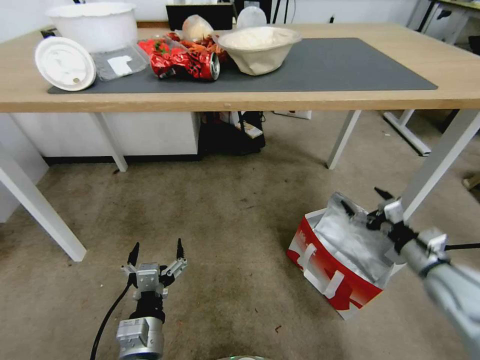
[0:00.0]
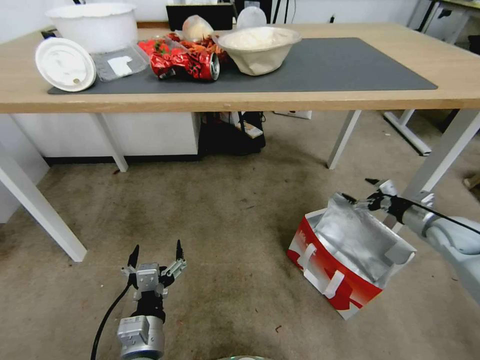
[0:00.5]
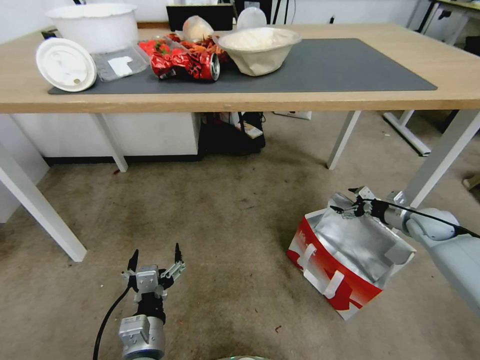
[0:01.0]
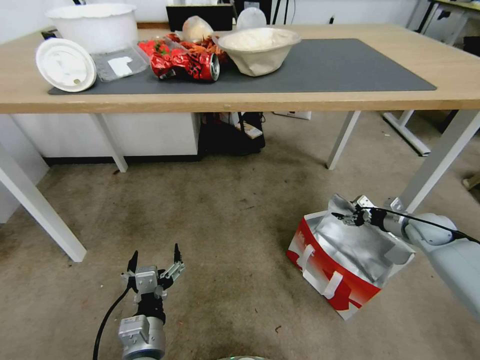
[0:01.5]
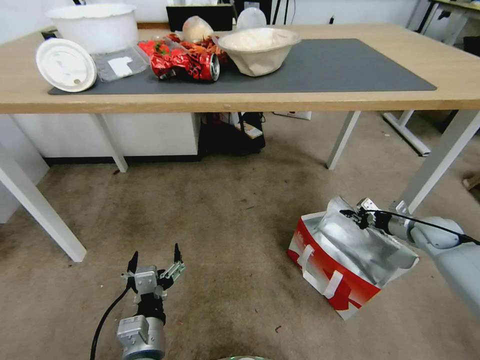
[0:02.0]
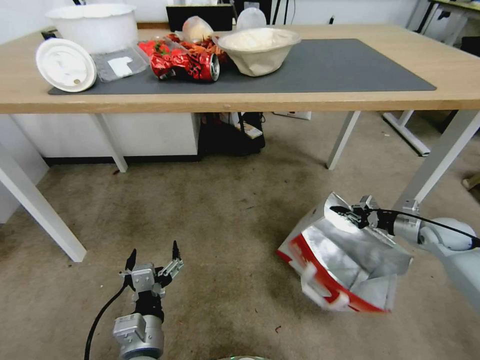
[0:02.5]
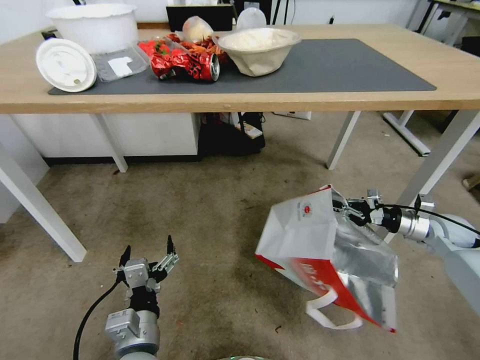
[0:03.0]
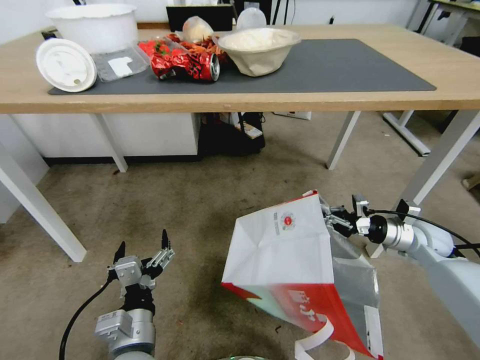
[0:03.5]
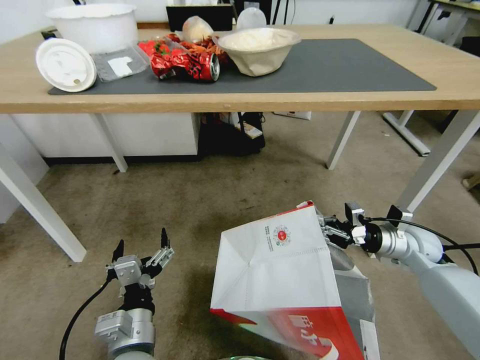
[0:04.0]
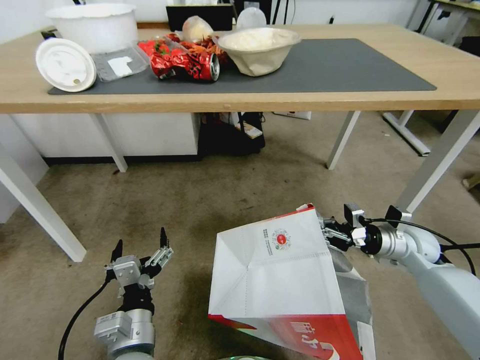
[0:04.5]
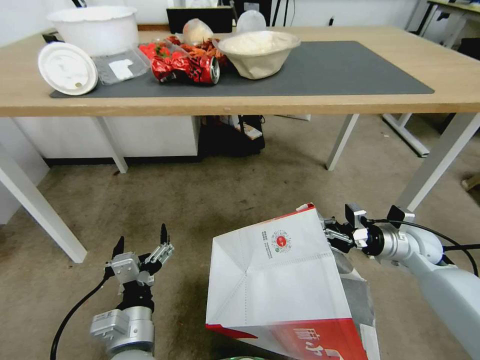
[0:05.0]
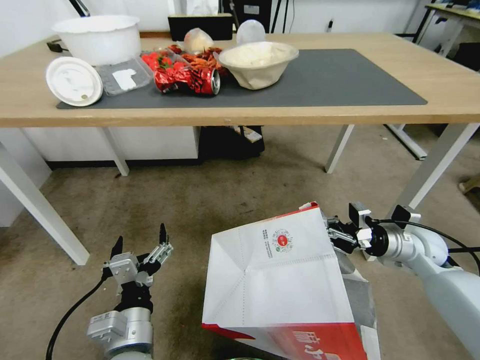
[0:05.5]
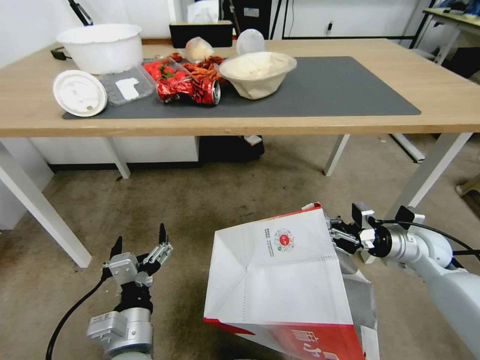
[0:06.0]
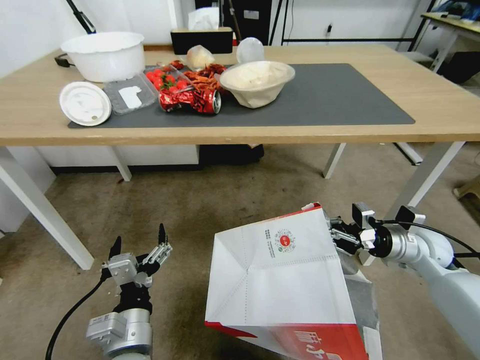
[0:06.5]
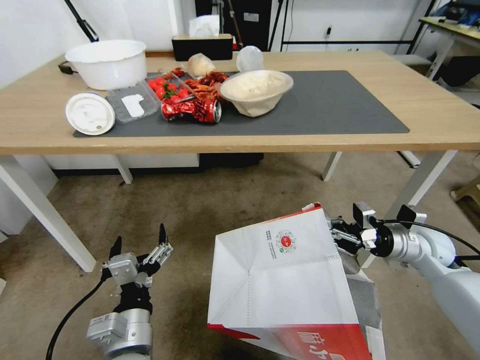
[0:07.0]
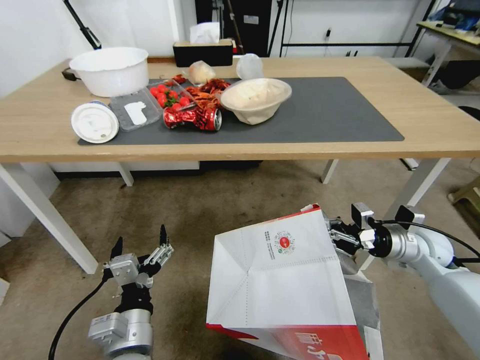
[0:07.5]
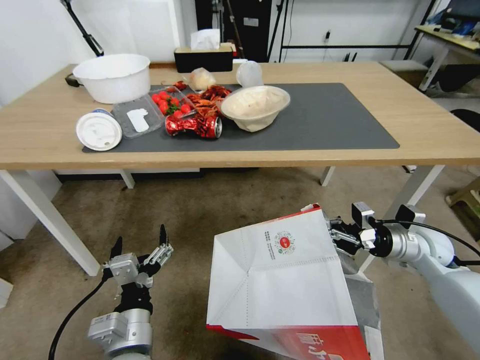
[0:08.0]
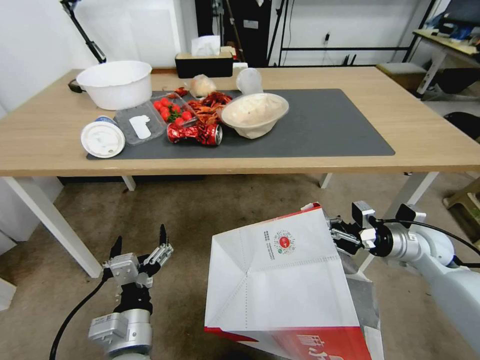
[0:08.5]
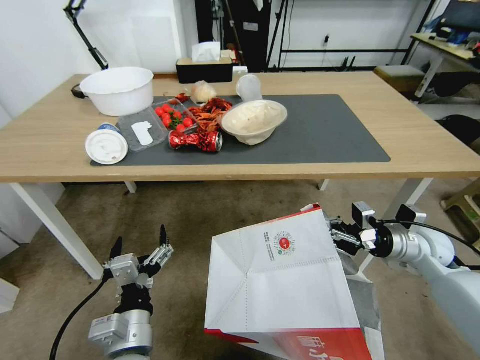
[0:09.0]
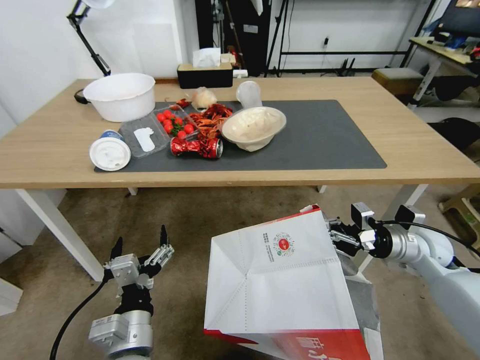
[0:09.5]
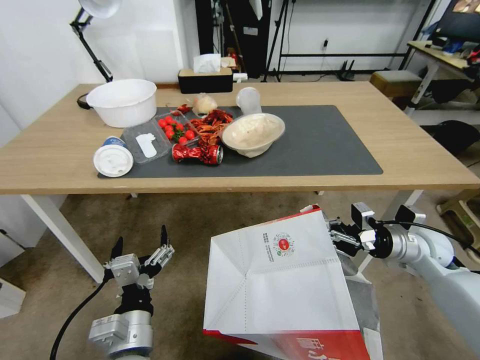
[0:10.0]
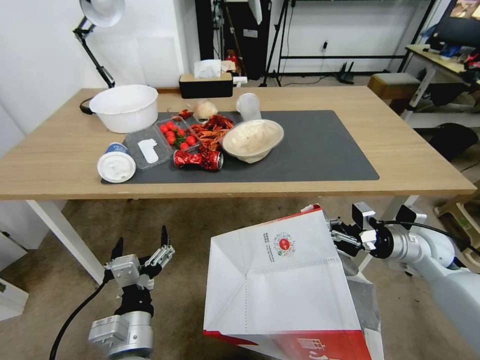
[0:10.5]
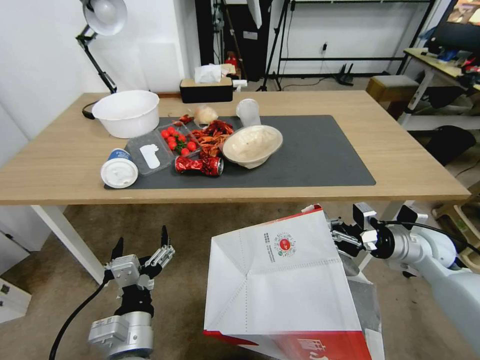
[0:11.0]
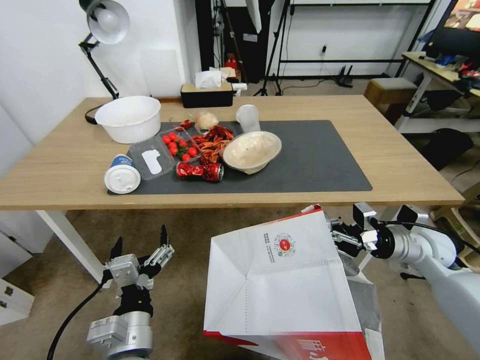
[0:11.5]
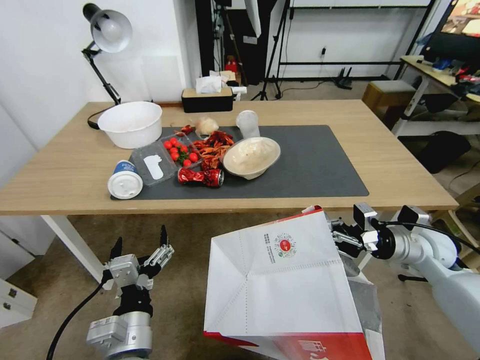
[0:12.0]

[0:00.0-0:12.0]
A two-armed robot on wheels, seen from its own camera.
Task of the whole recording: Pick up the food delivery bag from the floor and place it on the table.
0:00.0 to 0:02.0: The right gripper heads forward, to the right and downward, covering some 20 cm, and closes up.
0:02.0 to 0:04.0: The right gripper shifts about 10 cm to the left.

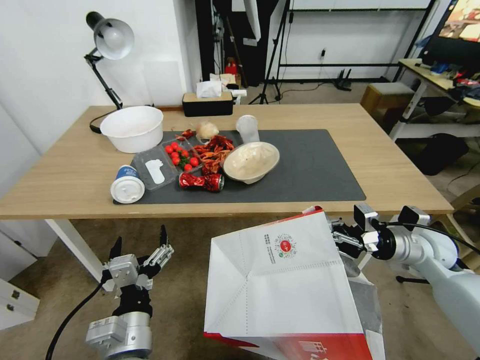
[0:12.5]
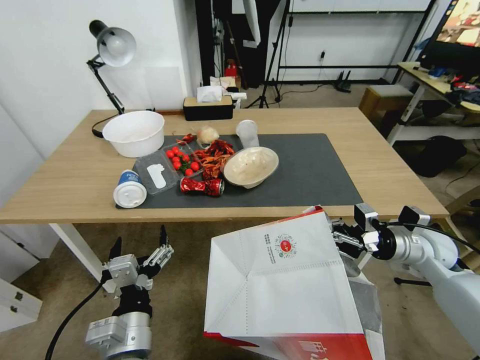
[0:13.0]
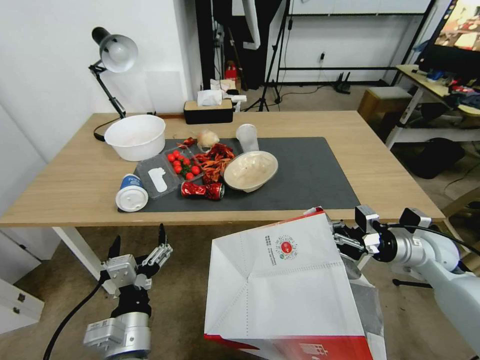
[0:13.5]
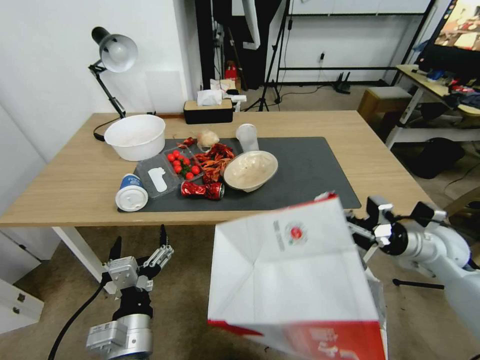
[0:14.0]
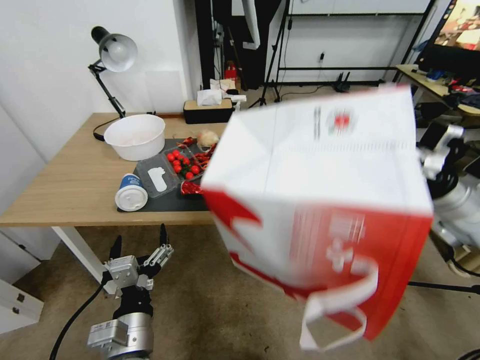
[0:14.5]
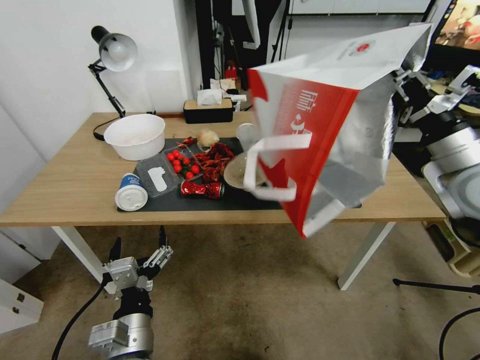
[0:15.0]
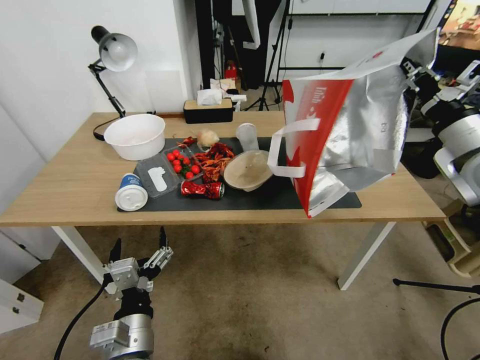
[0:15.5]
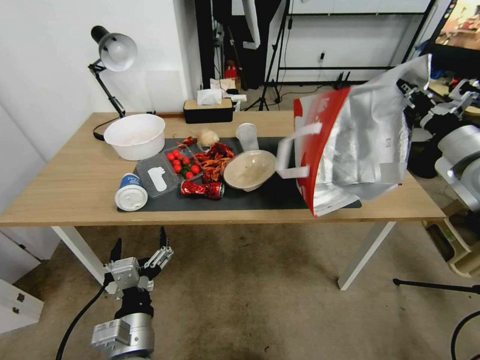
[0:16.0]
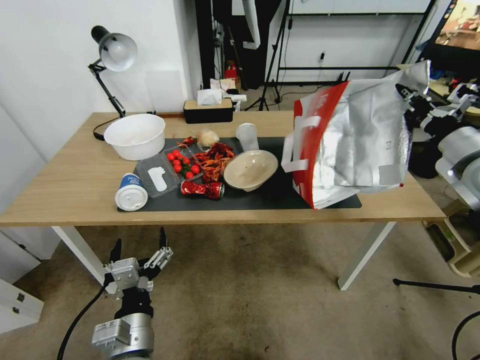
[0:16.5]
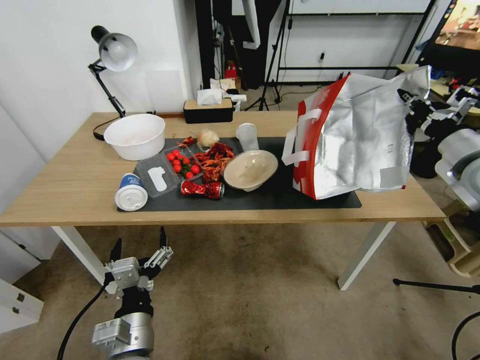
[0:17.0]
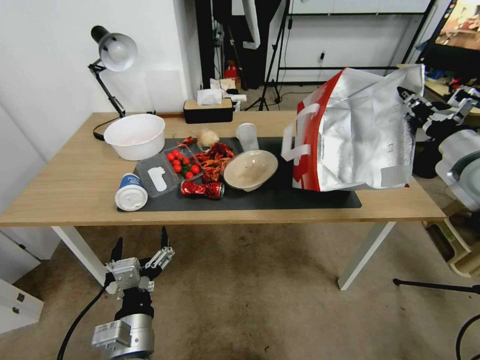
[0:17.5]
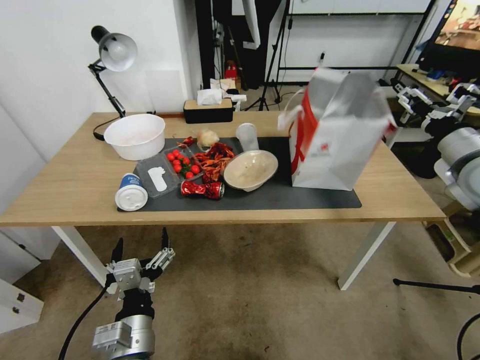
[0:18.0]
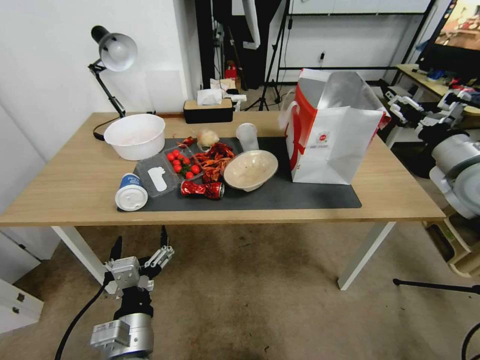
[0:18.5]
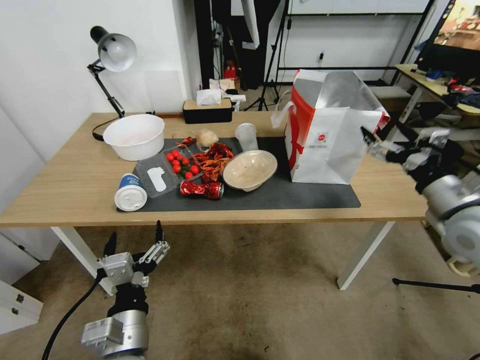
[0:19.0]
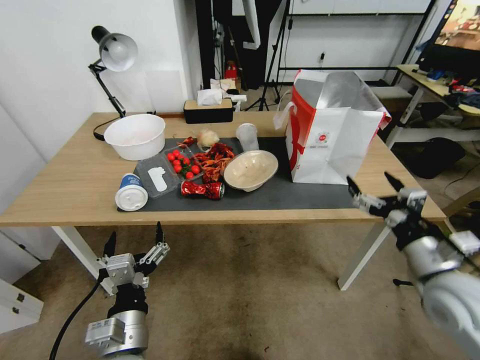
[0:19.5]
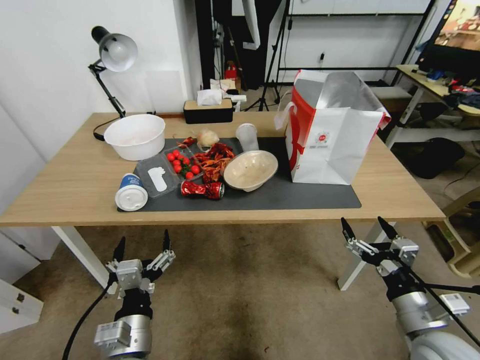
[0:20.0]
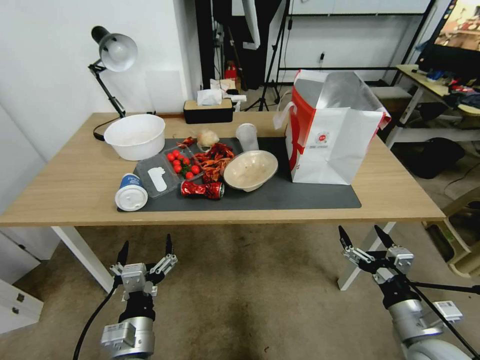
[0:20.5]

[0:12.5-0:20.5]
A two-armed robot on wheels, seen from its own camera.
Task of the whole recording: Pick up the food delivery bag from the floor and place it on the table.
0:12.5 to 0:14.5: The right gripper travels upward by roughly 10 cm.
0:14.5 to 0:16.5: The right gripper travels upward by roughly 10 cm.
0:16.5 to 0:18.5: The right gripper opens up.
0:18.5 to 0:20.5: The right gripper goes roughly 30 cm downward and backward.

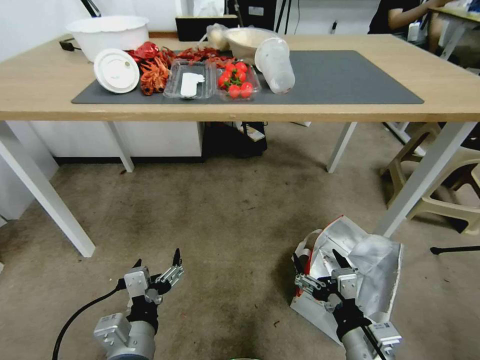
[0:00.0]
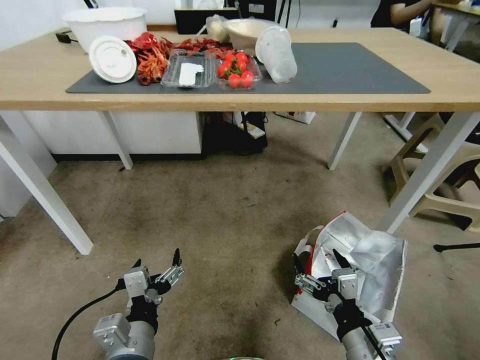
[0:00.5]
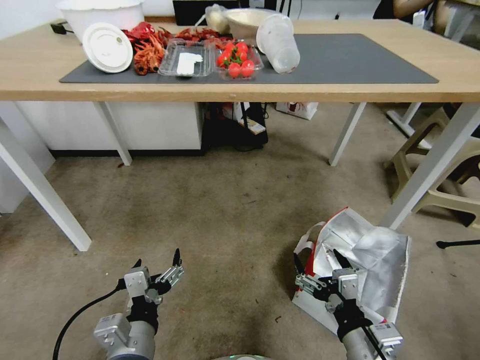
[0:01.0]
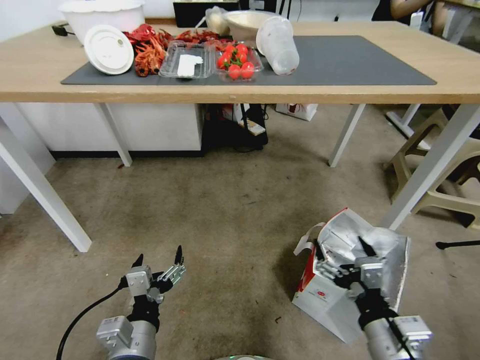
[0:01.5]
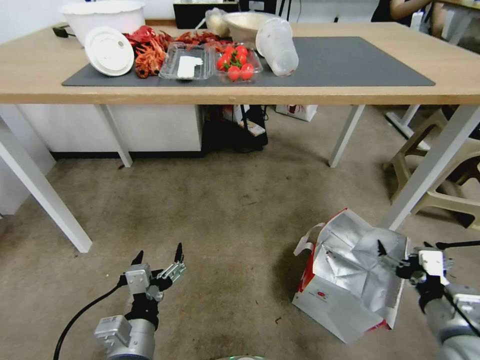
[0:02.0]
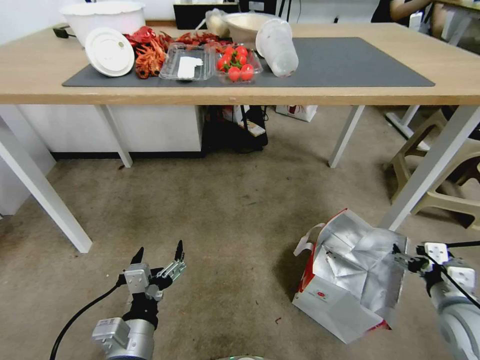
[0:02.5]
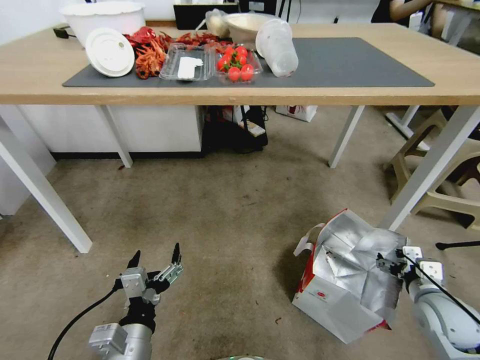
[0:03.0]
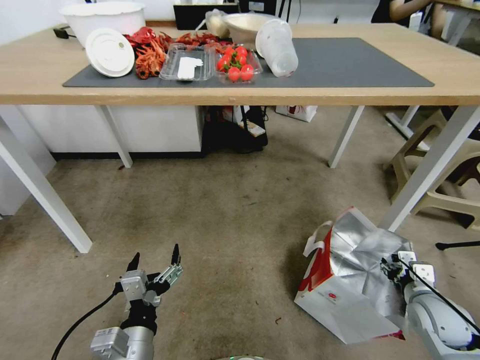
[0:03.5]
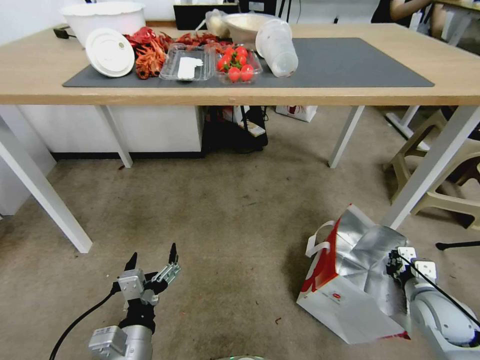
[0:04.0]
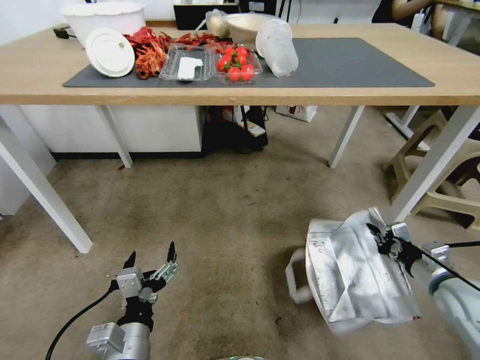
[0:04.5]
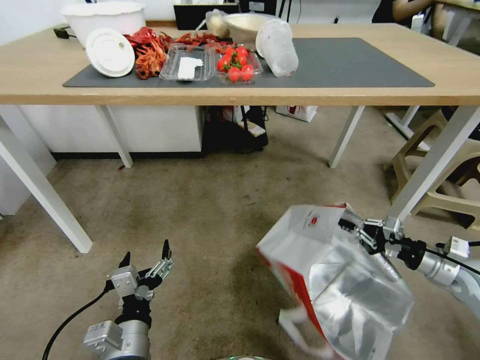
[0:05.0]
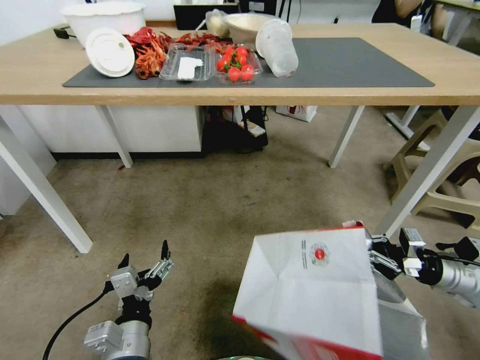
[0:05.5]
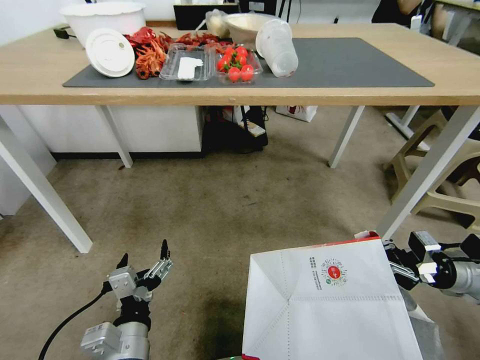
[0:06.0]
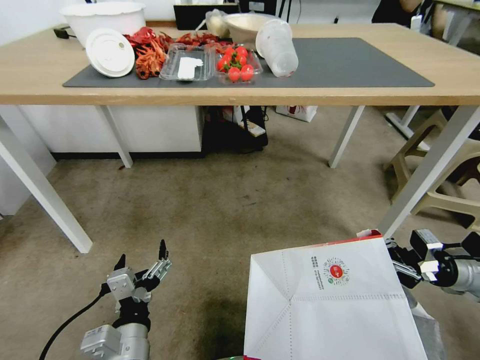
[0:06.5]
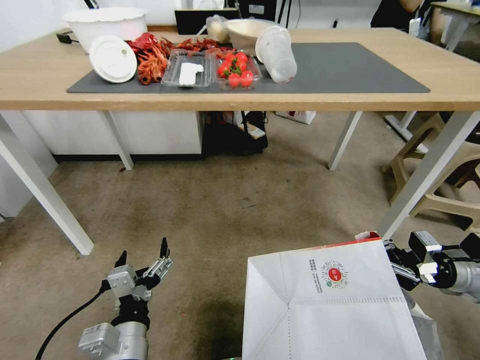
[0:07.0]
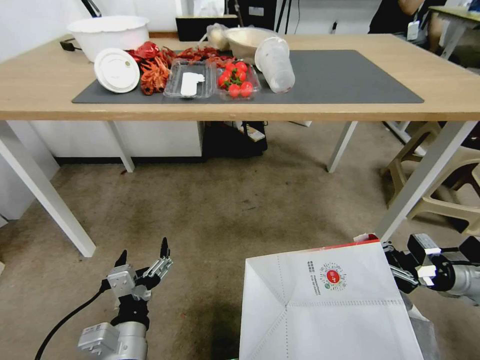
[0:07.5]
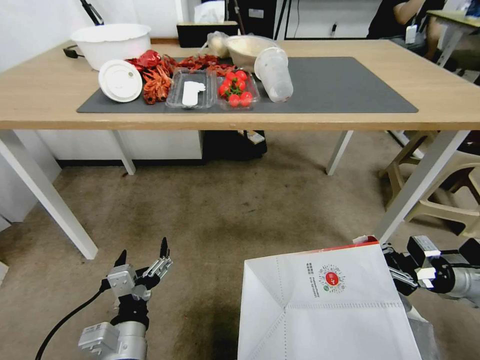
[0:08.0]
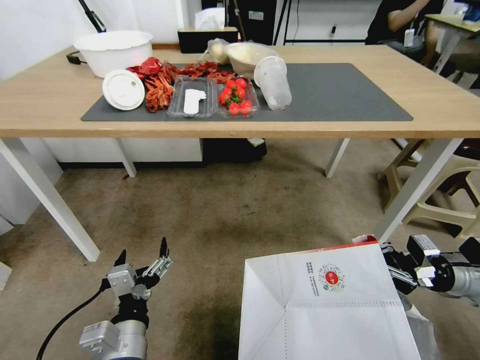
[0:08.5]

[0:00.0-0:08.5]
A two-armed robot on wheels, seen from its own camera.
Task of the whole recording: Pick up the food delivery bag from the floor and place it on the table.
0:00.0 to 0:02.0: The right gripper is displaced to the right by roughly 15 cm.
0:02.0 to 0:04.0: The right gripper goes approximately 15 cm forward, downward and to the right, and closes its fingers.
0:04.0 to 0:06.5: The right gripper travels upward, to the right and forward by about 10 cm.
